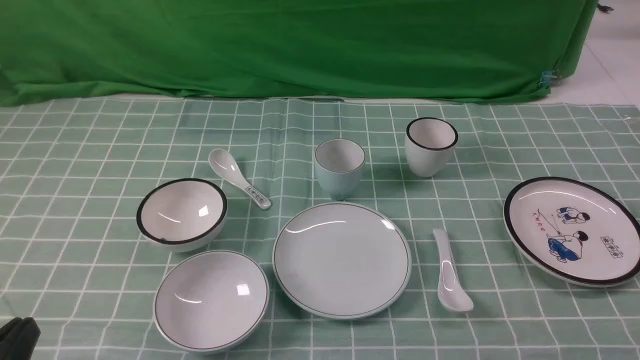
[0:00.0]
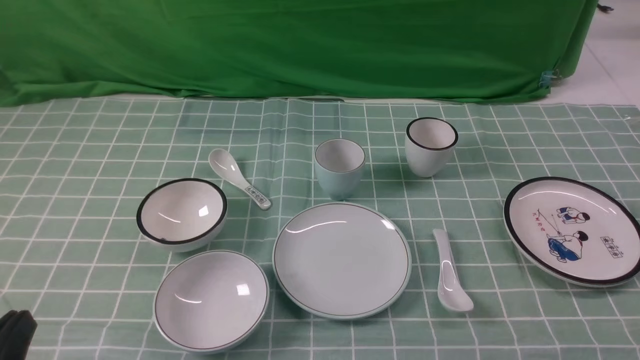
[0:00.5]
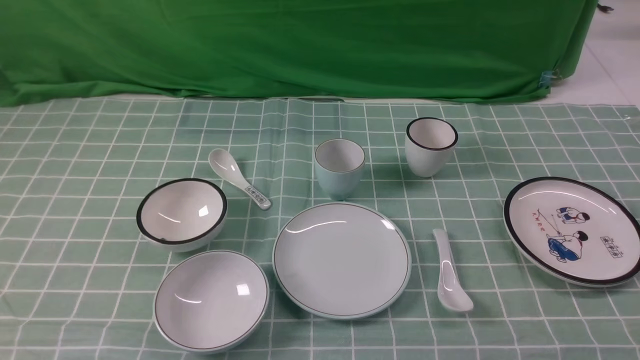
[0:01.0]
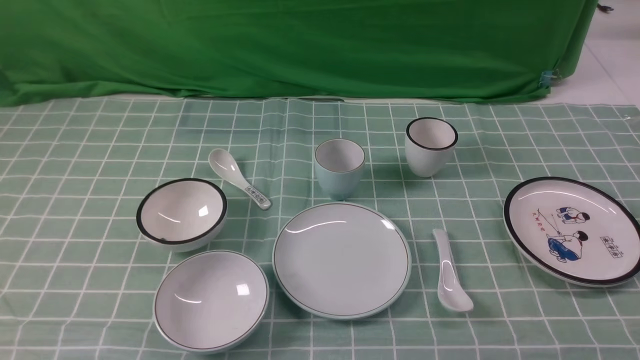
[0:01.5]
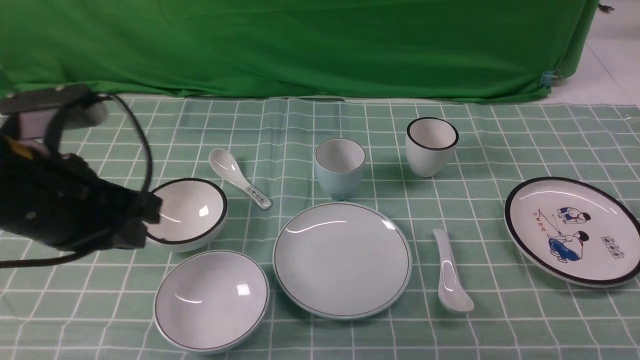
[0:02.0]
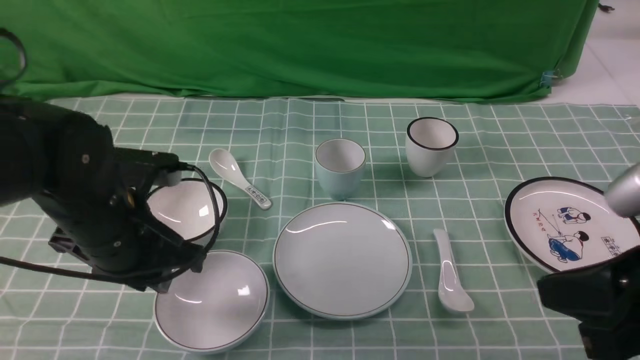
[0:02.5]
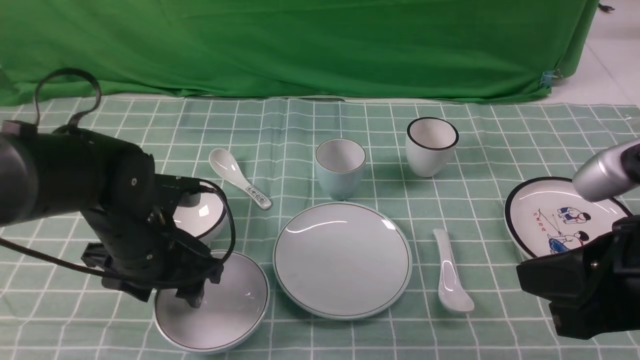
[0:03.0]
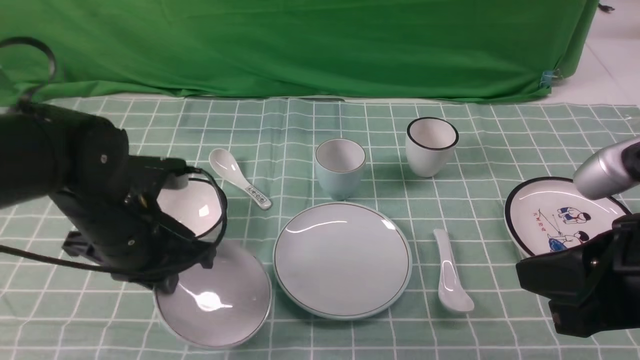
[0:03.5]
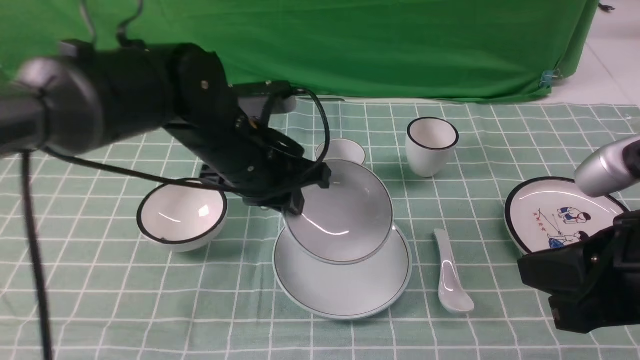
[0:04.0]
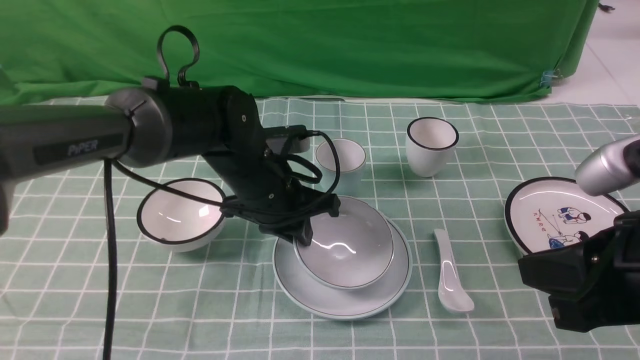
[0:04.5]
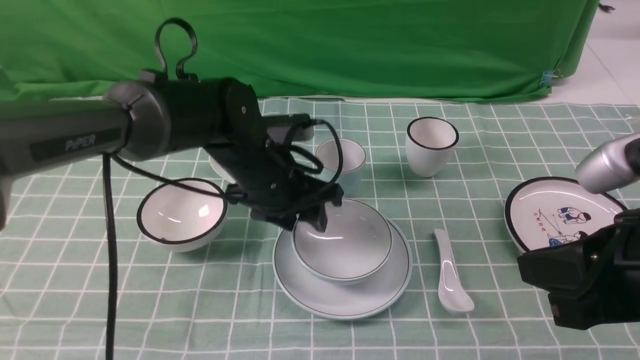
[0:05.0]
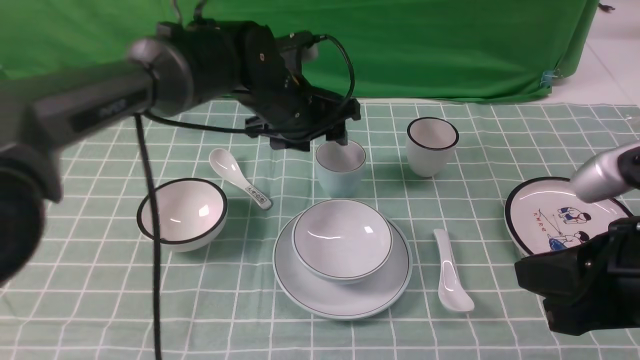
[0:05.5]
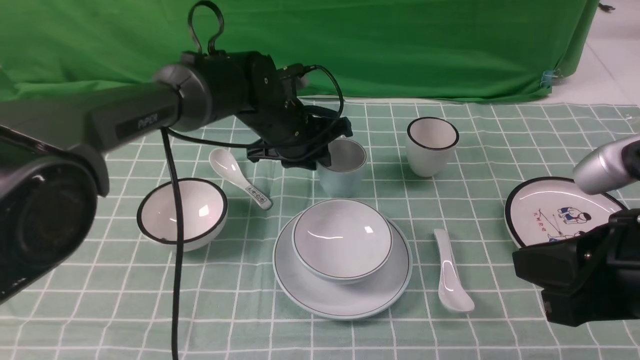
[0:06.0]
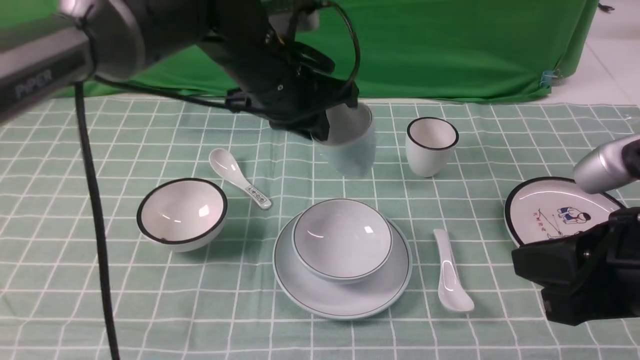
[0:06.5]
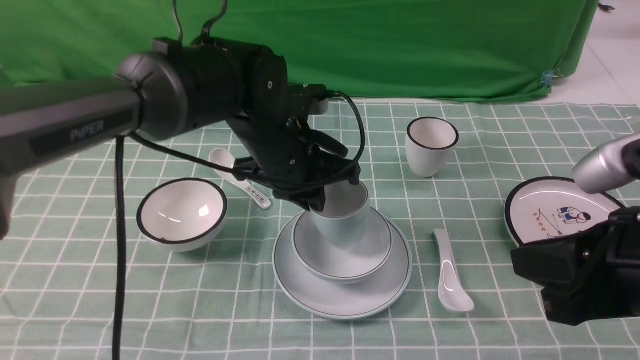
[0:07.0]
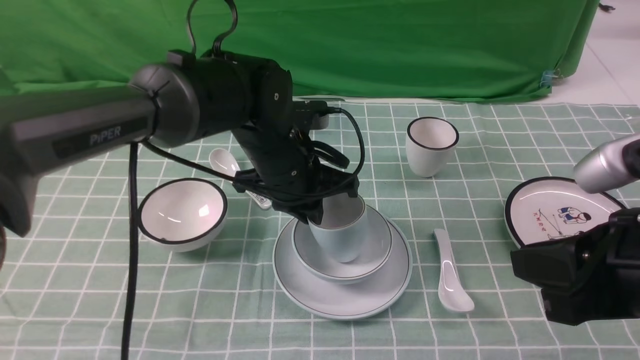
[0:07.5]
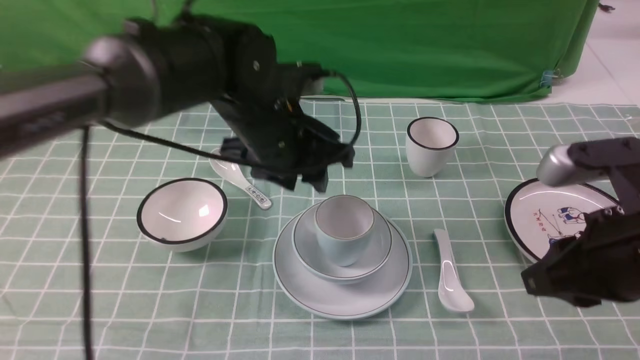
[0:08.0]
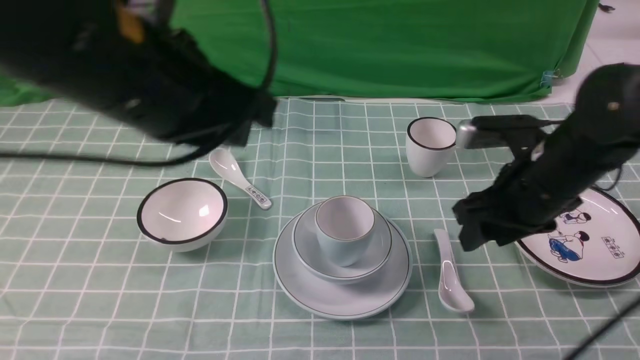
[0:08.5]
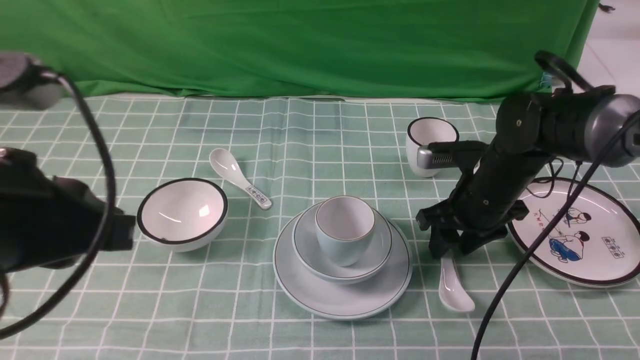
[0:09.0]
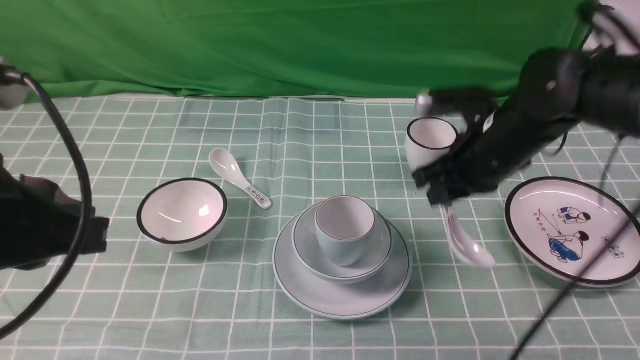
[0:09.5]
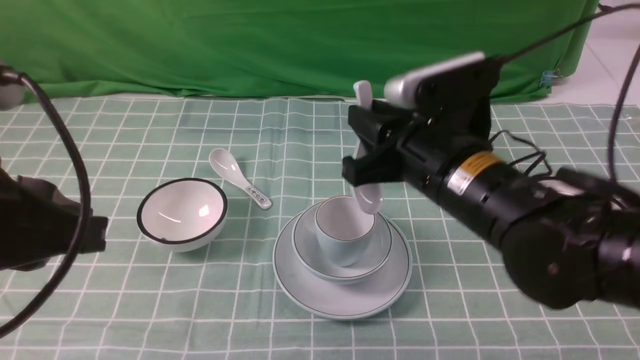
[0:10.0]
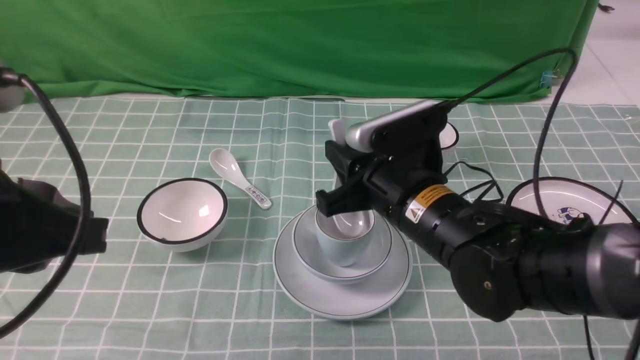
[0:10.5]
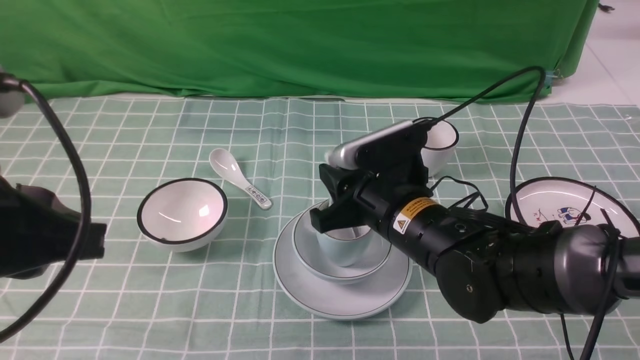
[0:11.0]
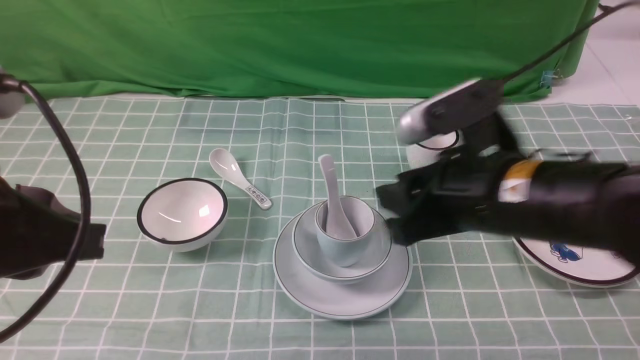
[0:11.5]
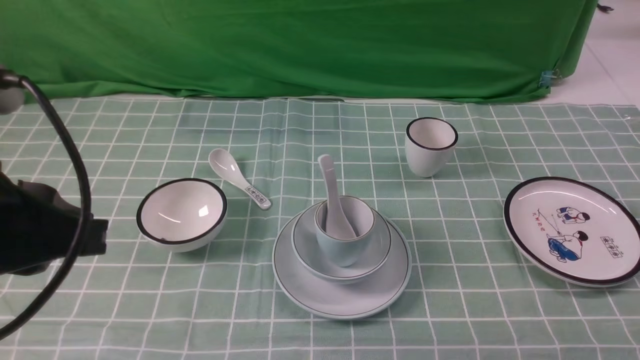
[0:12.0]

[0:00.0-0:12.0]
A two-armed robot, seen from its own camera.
Task of the whole recording: place the bowls on the plates on the blue tablecloth, put the cups on the bowls, and place the spoons in the cups.
Step, 0:00.0 to 0:03.0: Grasp the bowl with the left gripper.
Step, 0:03.5 to 0:04.5: Place the bowl on the plate with the left gripper.
Step, 0:05.0 to 0:06.0: Grasp the cup with the left gripper.
Step, 0:06.5 to 0:07.5: Place the cup on the bowl with the left gripper.
Step, 0:08.0 to 0:09.0: Grasp the spoon with the right gripper.
Step, 0:09.5 to 0:11.0: Place the spoon on the cup with the right gripper.
0:02.0 to 0:04.0: The left gripper shifts roughly 15 cm to the right, forward and downward, and opens, then closes again; the right gripper heads to the left and forward, covering roughly 15 cm.
0:04.0 to 0:06.0: The left gripper goes roughly 15 cm forward, downward and to the right, and opens up.
0:06.0 to 0:08.0: The left gripper travels backward and upward by about 10 cm, and closes and opens again.
0:08.0 to 0:10.0: The right gripper is displaced to the left and forward by about 15 cm, and opens, then closes once more; the left gripper moves backward, to the left and upward, roughly 30 cm, and closes up.
0:10.0 to 0:12.0: The right gripper heads backward, to the right and upward, covering about 25 cm, and closes.

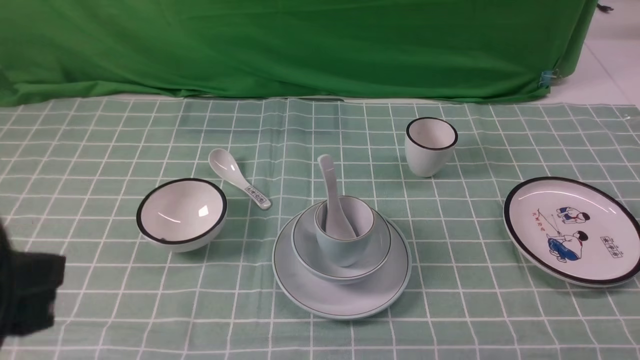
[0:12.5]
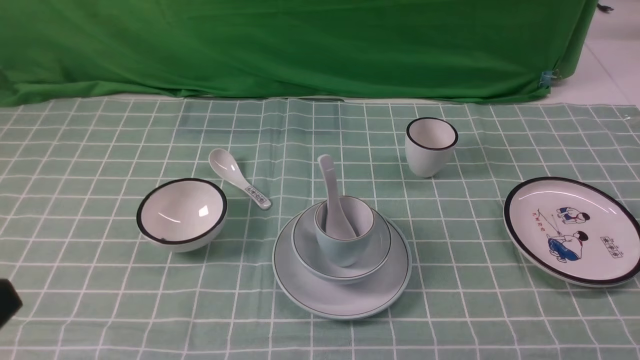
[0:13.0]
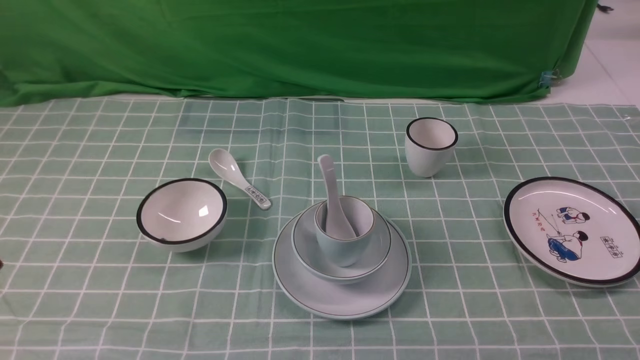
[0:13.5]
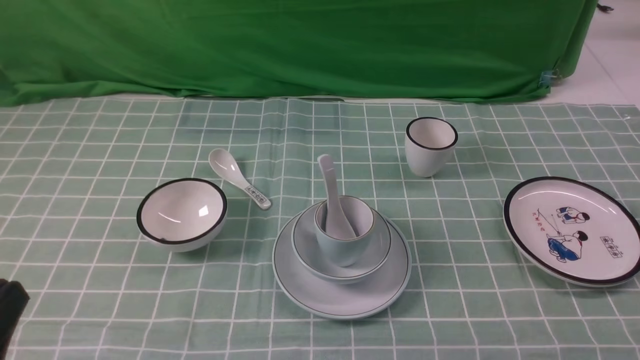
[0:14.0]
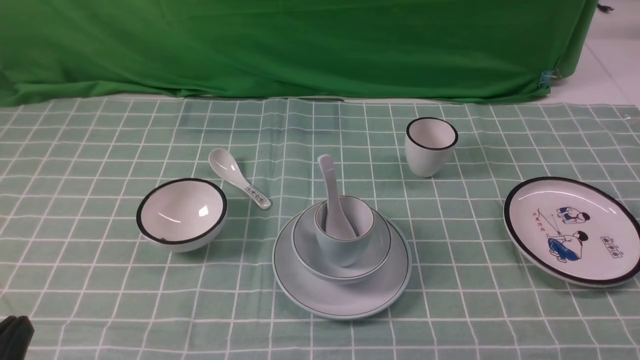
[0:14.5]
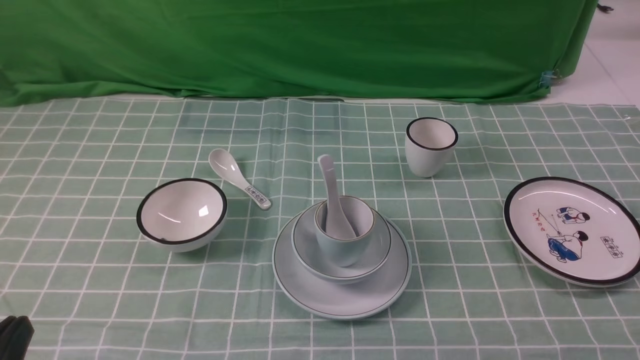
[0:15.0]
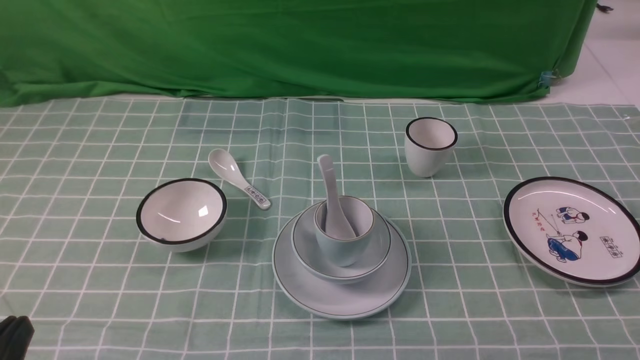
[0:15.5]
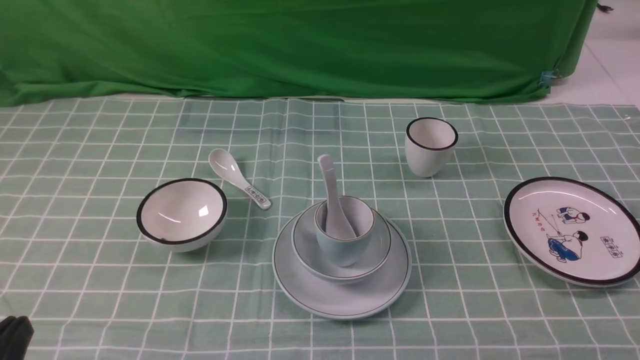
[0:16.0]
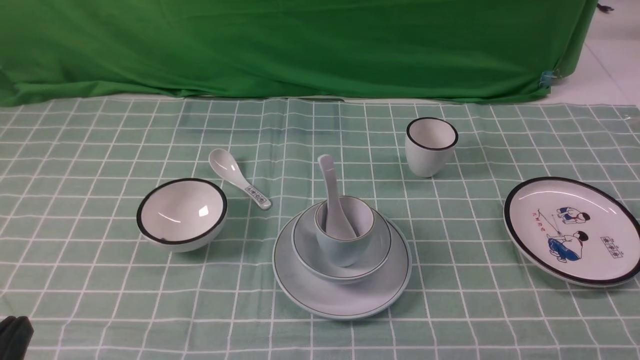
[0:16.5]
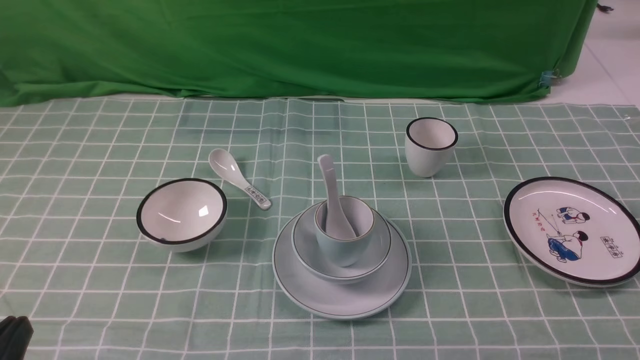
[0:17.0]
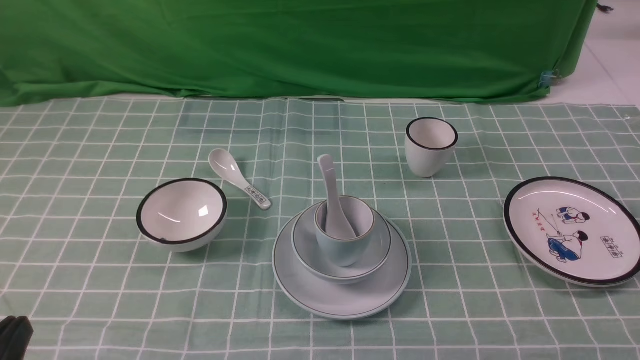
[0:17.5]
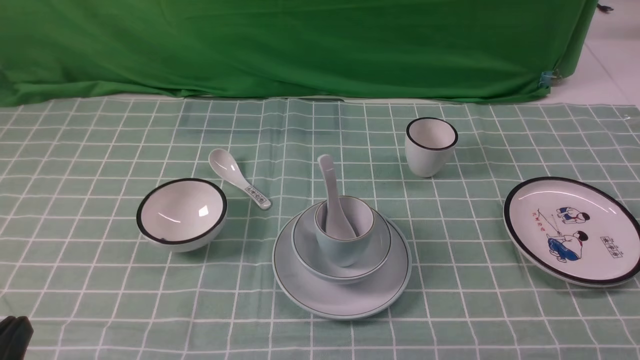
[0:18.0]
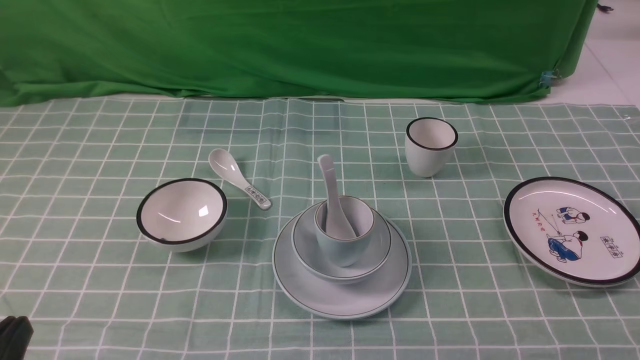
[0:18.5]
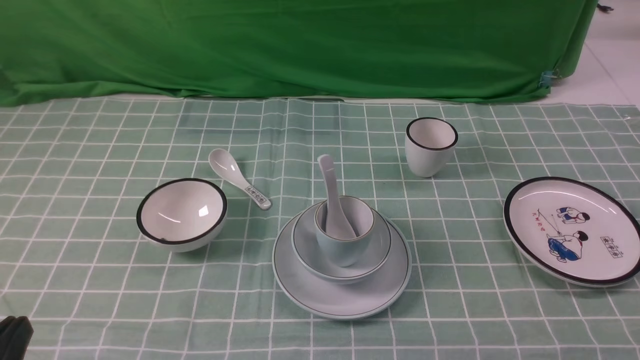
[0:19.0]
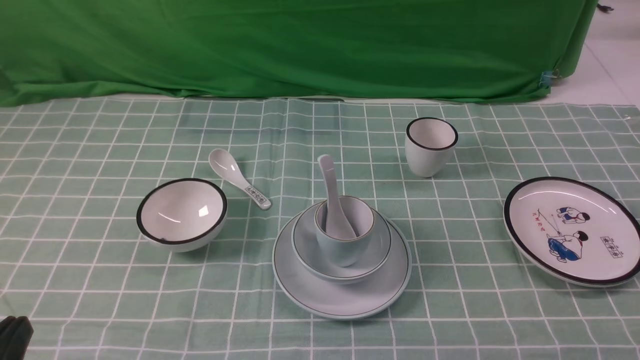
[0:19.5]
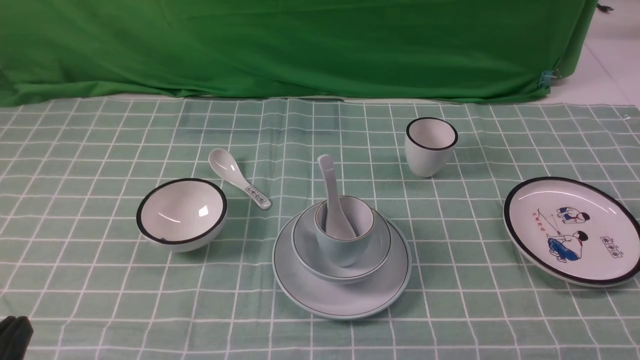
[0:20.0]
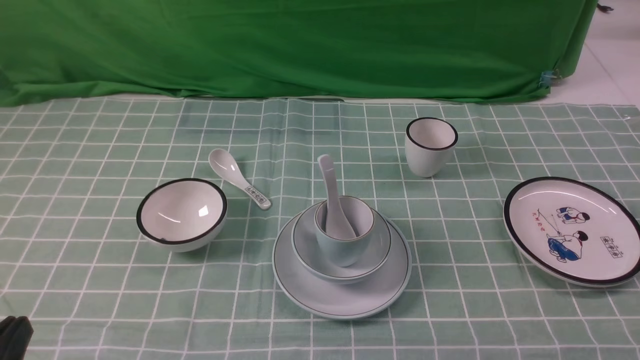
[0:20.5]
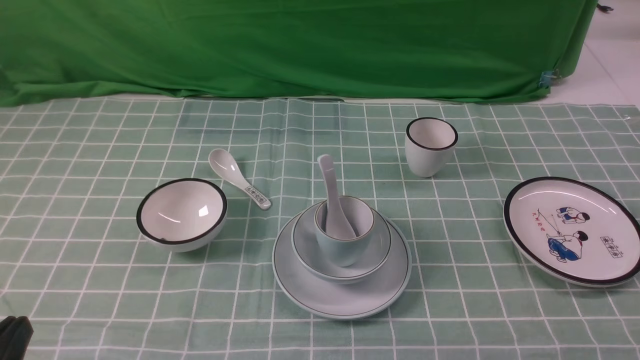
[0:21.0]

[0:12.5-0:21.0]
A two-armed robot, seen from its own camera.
Task of the whole recording: place the bowls on the plates on the blue tablecloth, put the cups on the bowls, and place the spoons in the cups.
0:12.5 to 0:14.5: The left gripper heads downward, covering some 15 cm.
0:16.5 to 0:19.0: Both grippers stay put.
